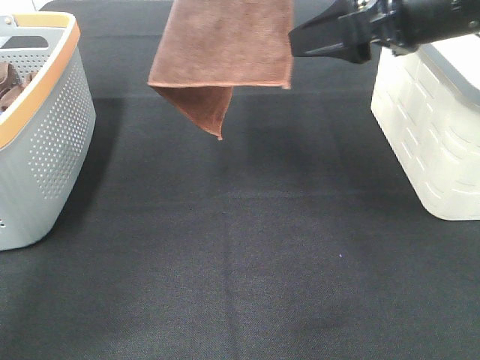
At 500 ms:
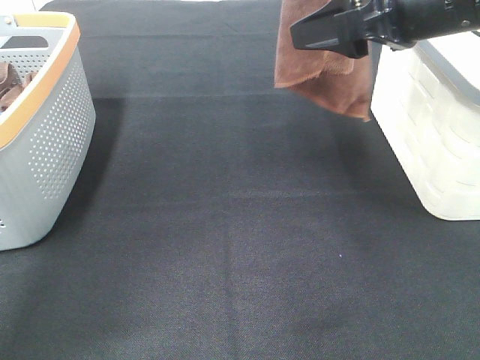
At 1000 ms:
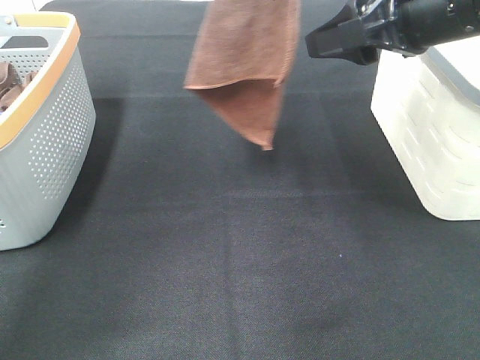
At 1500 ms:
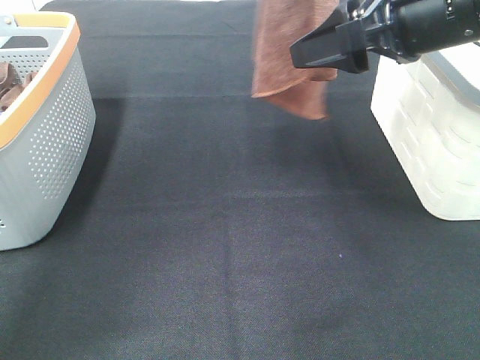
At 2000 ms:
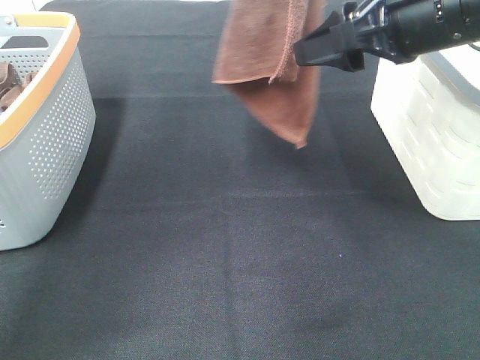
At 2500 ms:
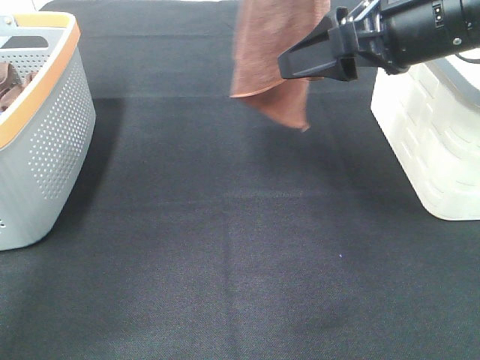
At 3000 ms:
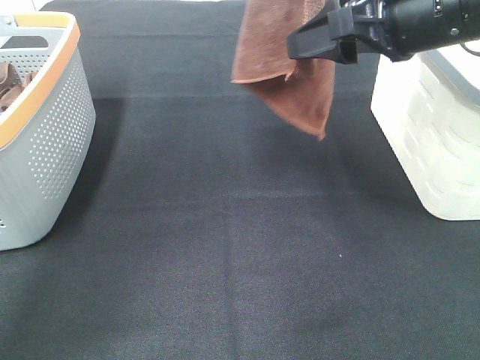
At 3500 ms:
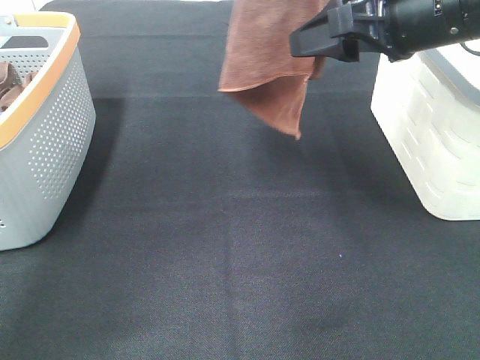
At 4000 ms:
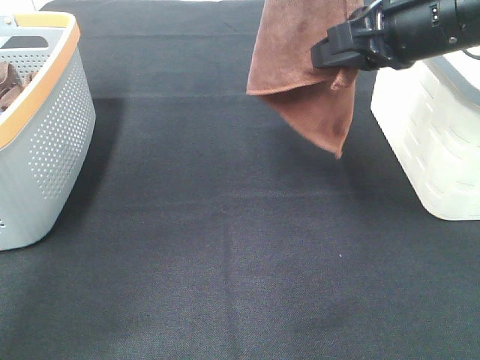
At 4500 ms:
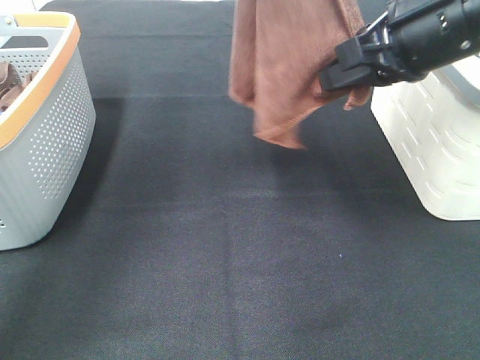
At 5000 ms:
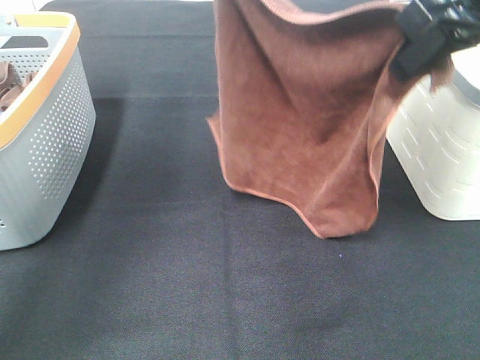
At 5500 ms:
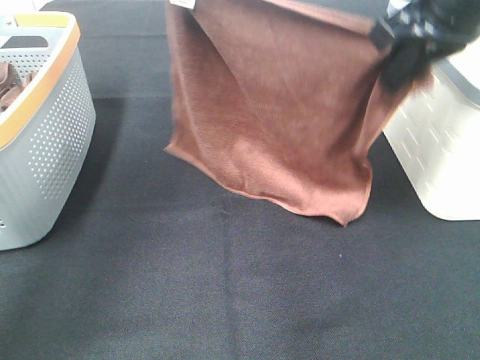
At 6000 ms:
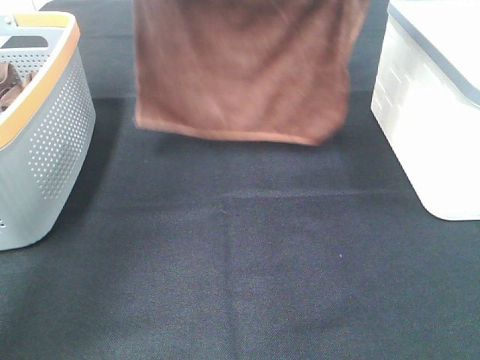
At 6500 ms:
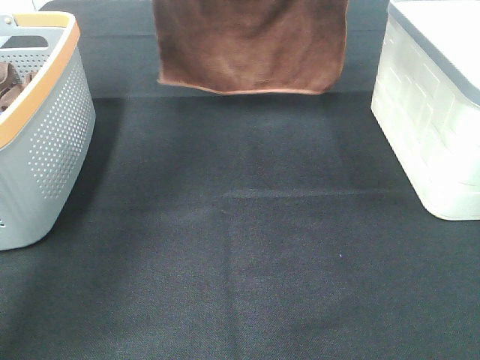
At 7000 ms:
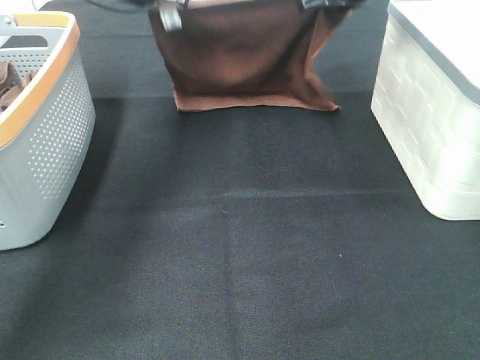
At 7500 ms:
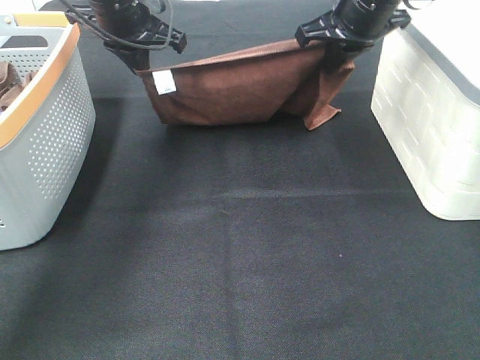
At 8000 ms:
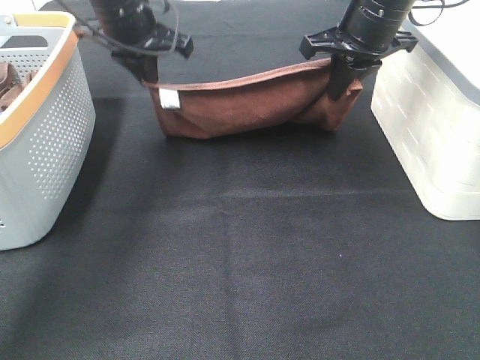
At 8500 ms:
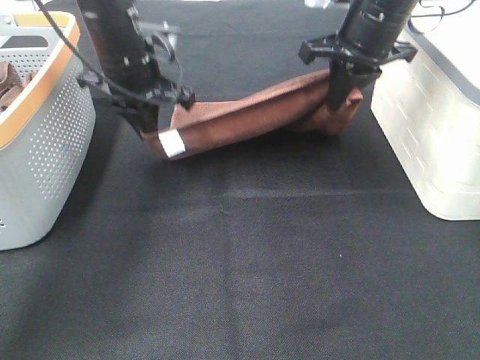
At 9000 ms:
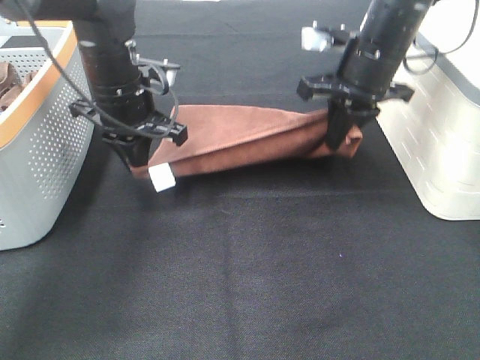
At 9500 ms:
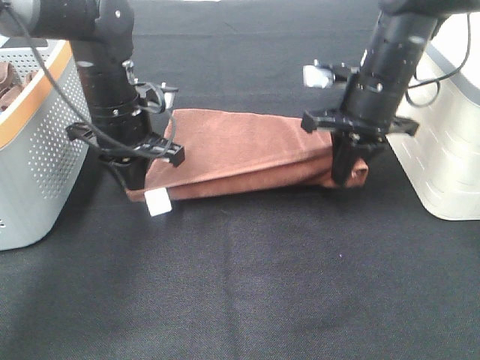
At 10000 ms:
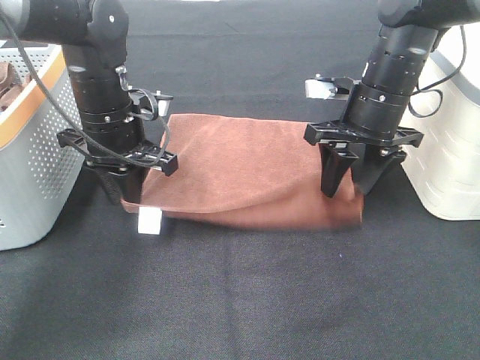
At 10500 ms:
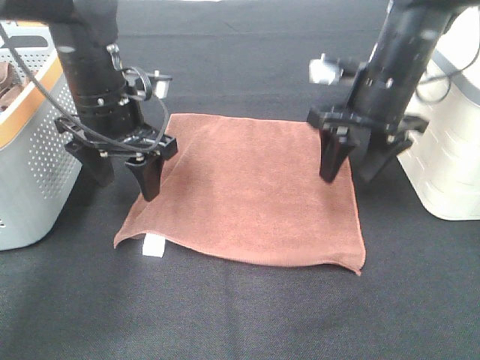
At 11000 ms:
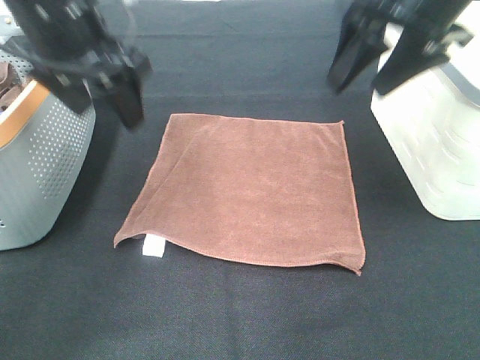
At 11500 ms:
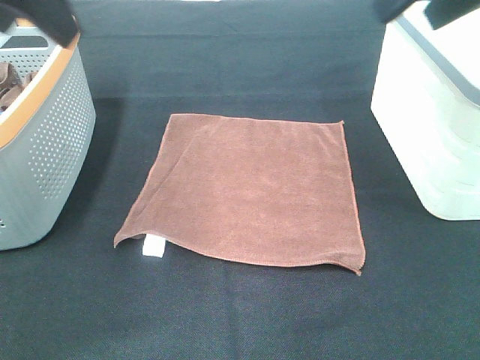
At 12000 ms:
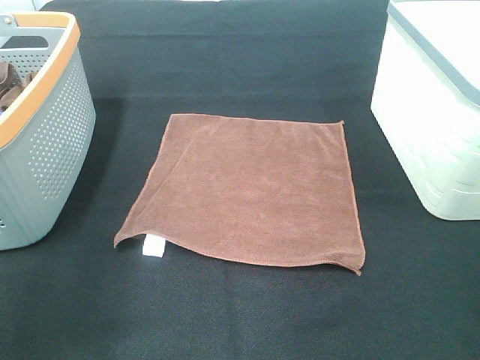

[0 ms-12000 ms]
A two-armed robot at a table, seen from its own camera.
Task of the whole recording: Remove the towel and place it.
Step, 0 ms to 2000 ms: Right hand: grab a corner of the brown towel and straighten it.
Step, 2500 ms to 5500 ms: Left hand: spread the brown towel flat on the table.
Step, 2500 ms to 5500 ms: Right hand: spread the brown towel flat on the table.
0 ms to 2000 ms: The grippers move only a little.
2000 ms to 4000 ms: The right gripper closes its fingers.
4000 ms to 6000 ms: The left gripper shifts approximately 10 cm to the left, downward and forward; the right gripper goes approximately 15 cm forward and upward.
6000 ms to 8000 ms: The left gripper moves downward, some 15 cm. Meanwhile the right gripper shifts approximately 10 cm downward.
8000 ms to 10000 ms: The right gripper is displaced downward and backward by some 10 cm, and opens its fingers, while the left gripper is displaced backward and downward by approximately 15 cm, and opens up.
10000 ms to 12000 ms: The right gripper goes some 30 cm backward and upward. The left gripper heads backward, upward and to the left, covering about 30 cm, and opens its fingers.

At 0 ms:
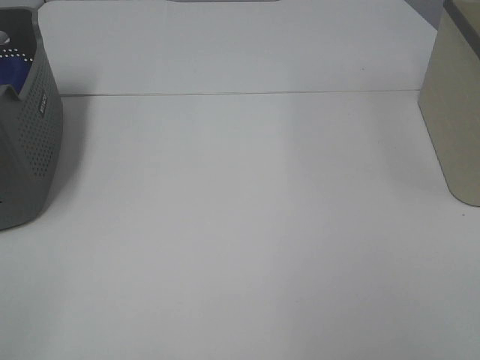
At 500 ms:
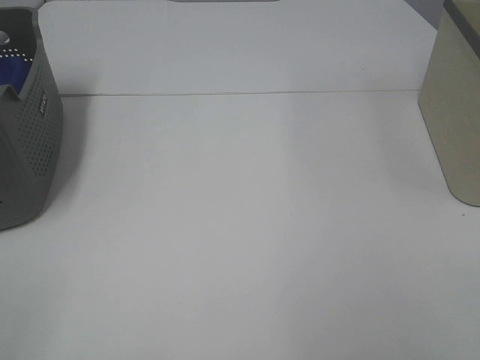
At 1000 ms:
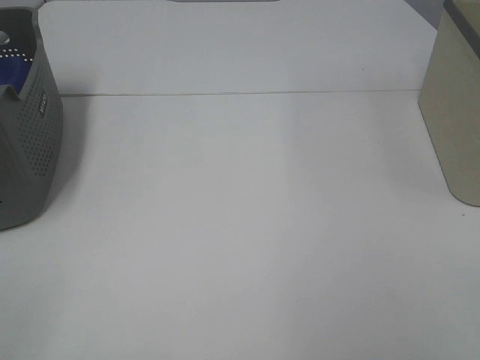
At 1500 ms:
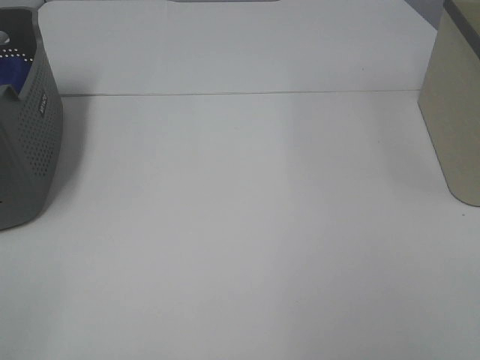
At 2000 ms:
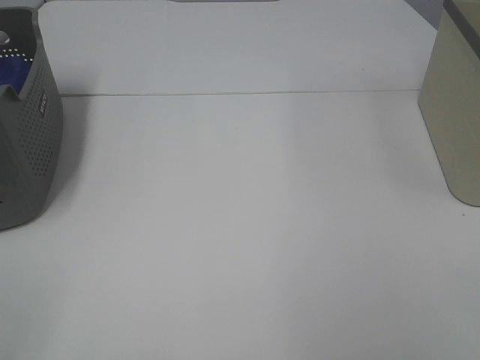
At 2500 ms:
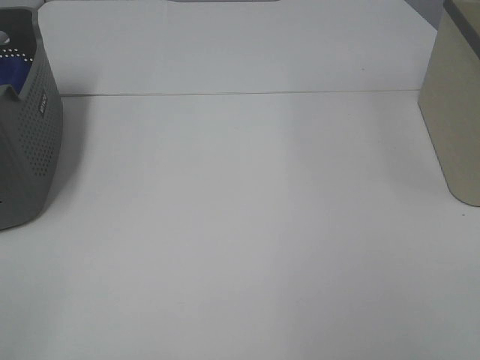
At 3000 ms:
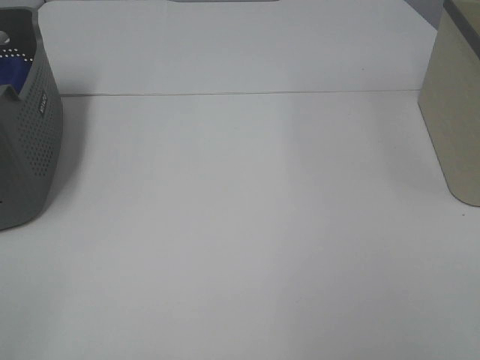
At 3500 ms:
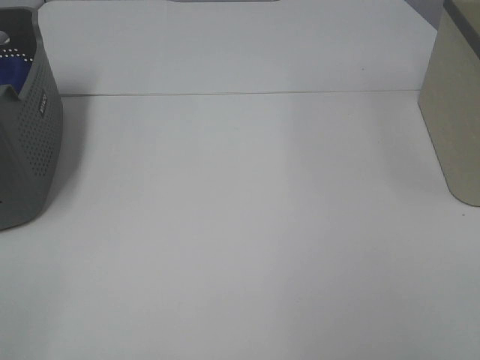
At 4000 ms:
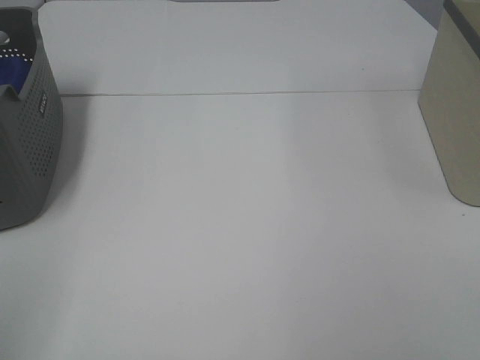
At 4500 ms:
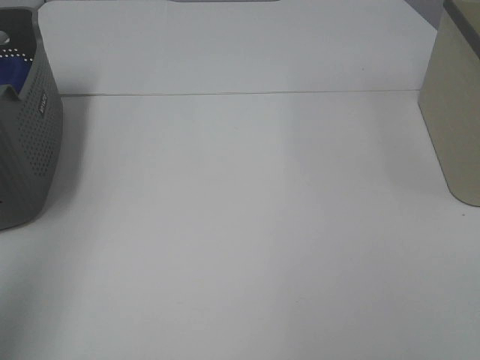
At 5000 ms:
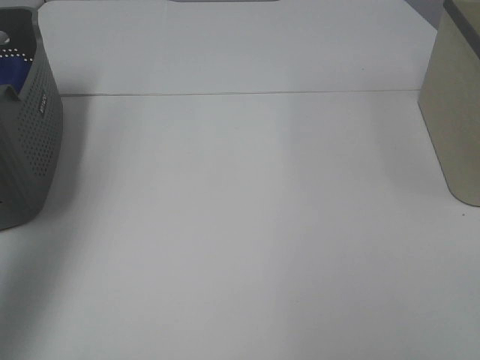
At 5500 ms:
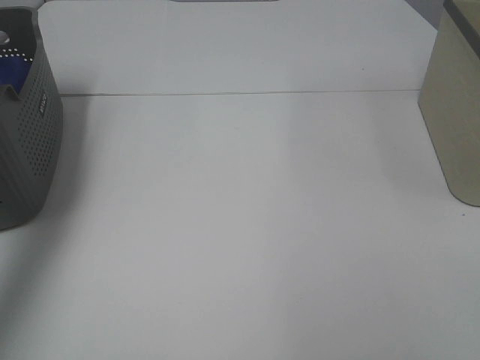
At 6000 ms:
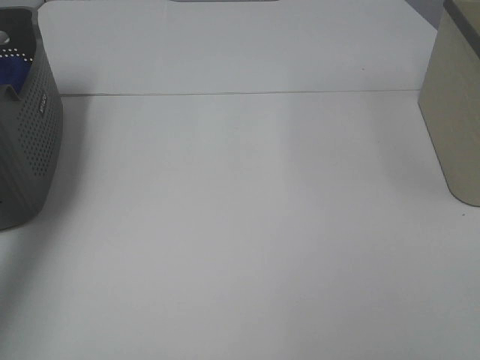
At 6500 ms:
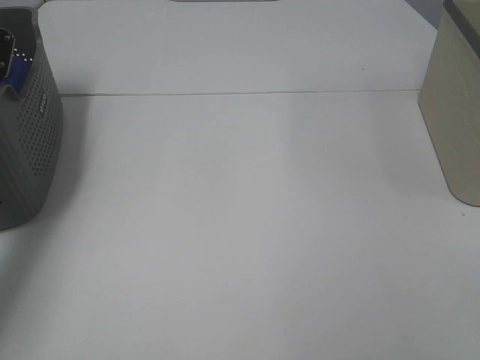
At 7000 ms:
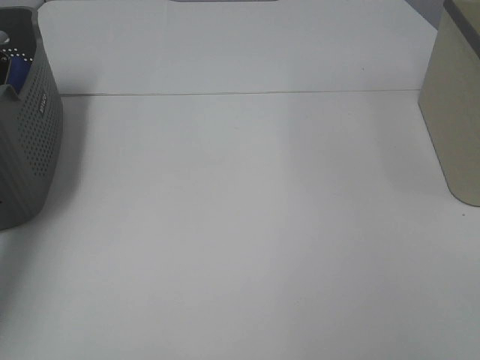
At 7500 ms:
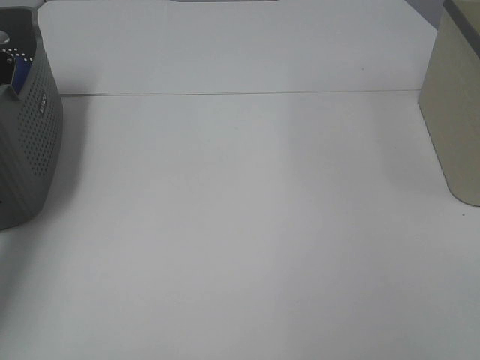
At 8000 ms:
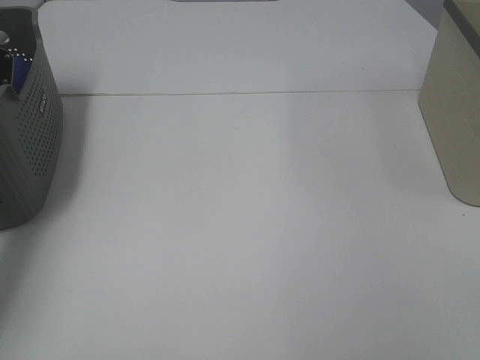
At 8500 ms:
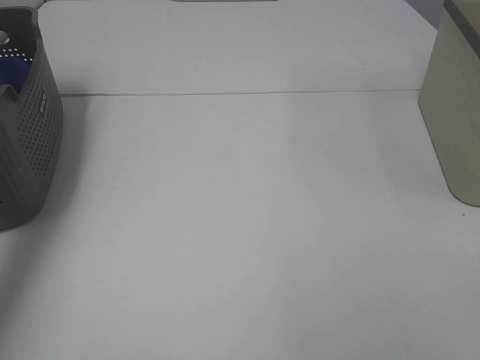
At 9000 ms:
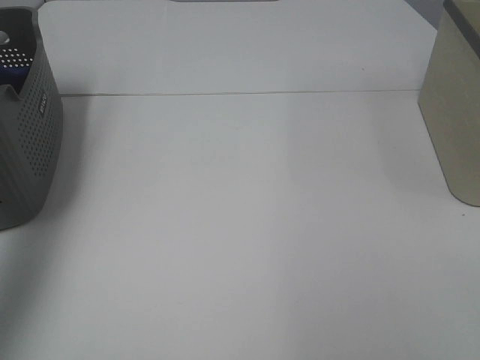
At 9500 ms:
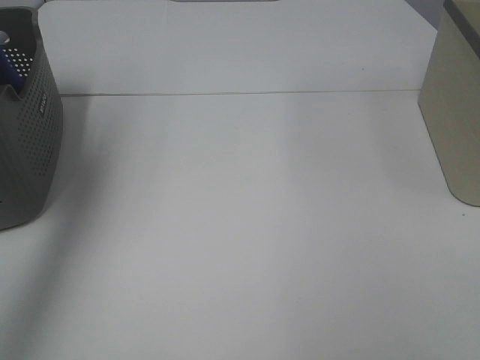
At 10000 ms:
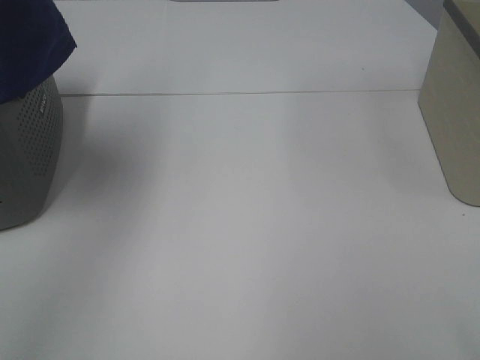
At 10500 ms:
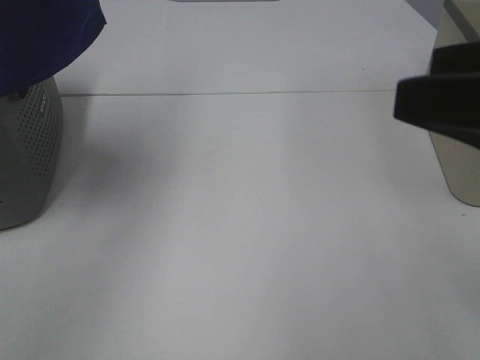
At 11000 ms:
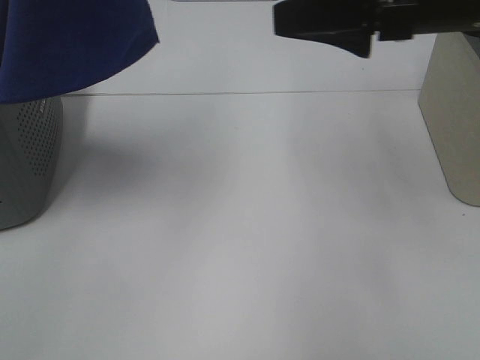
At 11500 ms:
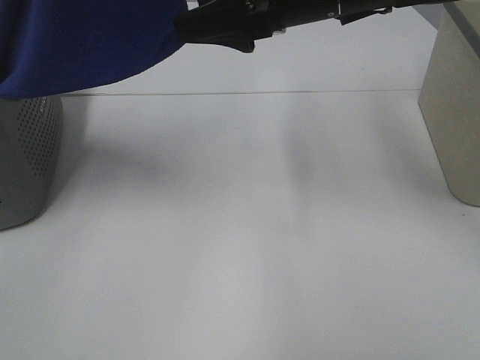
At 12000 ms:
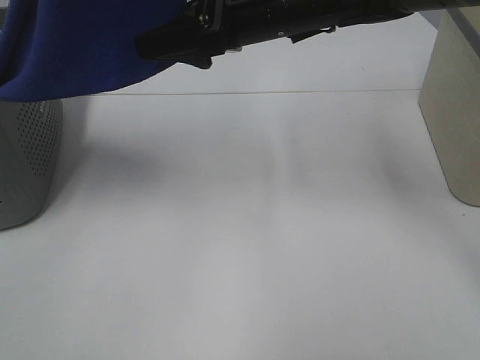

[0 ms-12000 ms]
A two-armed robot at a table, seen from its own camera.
Task of the whole recording: Remove the towel and place it.
0 ms to 2000 ms: The two grippers keep their place.
4000 ms to 6000 ms: The left gripper moves forward, roughly 40 cm.
8000 ms to 10000 ms: The left gripper heads upward, backward and to the right, covering roughly 40 cm.
10000 ms to 12000 ms: The right gripper travels forward and to the left by about 40 cm; the left gripper goes approximately 10 cm to the right.

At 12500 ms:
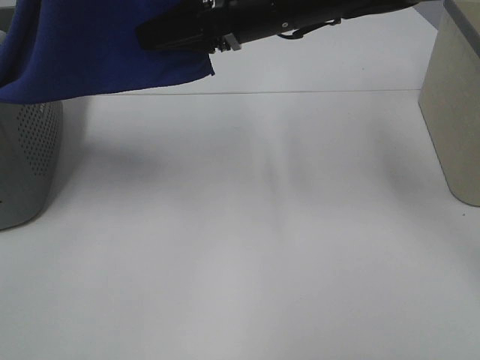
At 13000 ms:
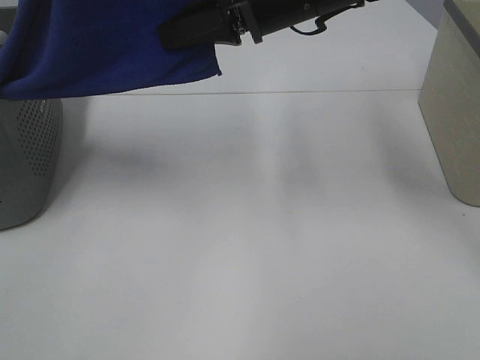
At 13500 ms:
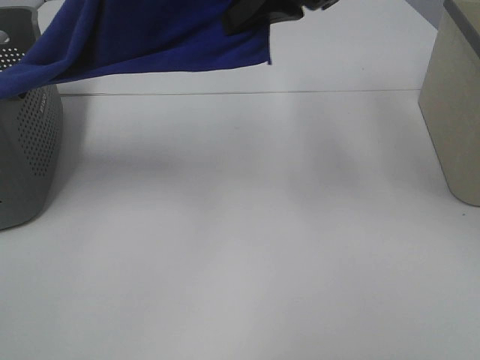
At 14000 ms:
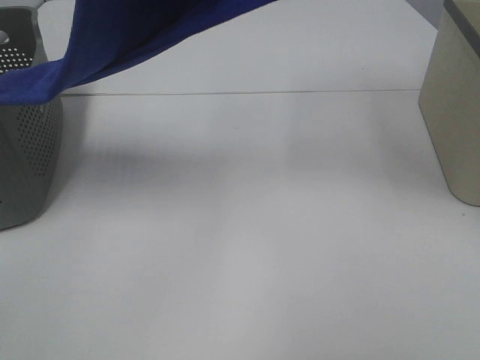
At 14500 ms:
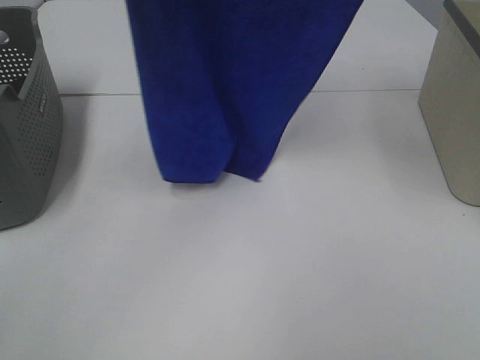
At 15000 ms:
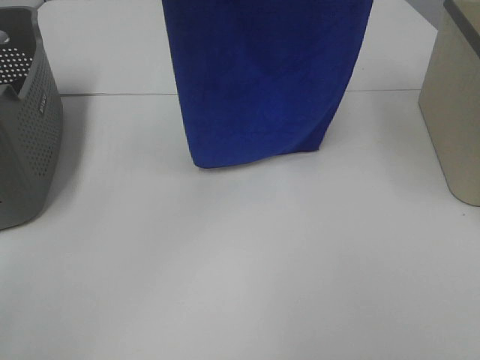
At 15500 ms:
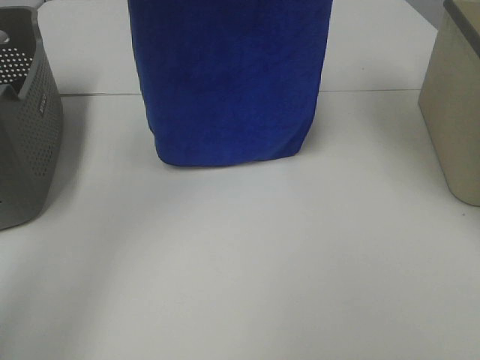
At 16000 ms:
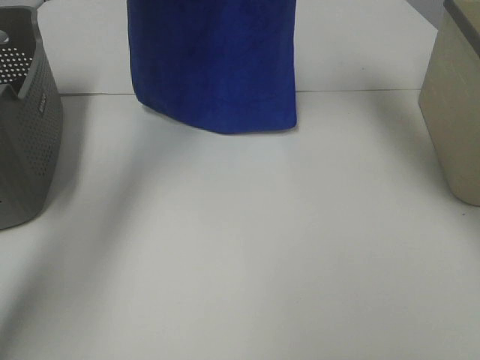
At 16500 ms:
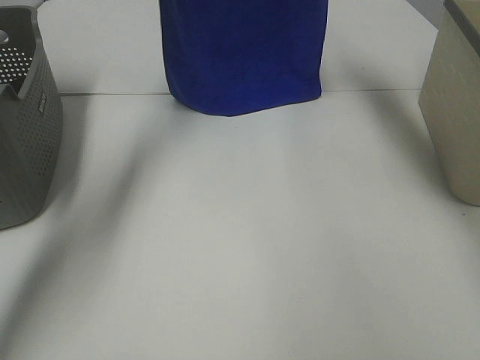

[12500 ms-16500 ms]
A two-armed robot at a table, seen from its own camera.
Task of the whole recording: Remove the towel and place it.
12500 ms to 14500 ms: The right gripper heads upward and to the right, covering some 25 cm.
14500 ms to 16500 ms: The grippers both shift forward and downward by about 20 cm.
